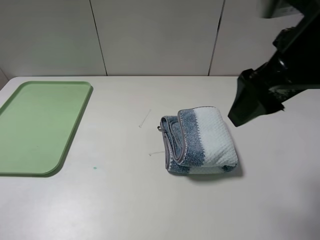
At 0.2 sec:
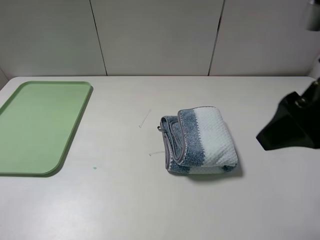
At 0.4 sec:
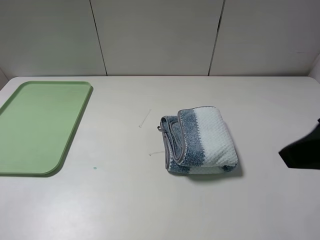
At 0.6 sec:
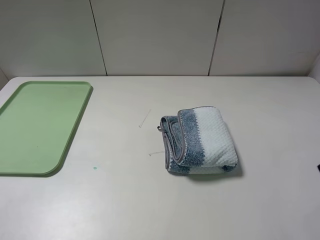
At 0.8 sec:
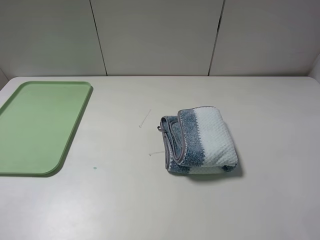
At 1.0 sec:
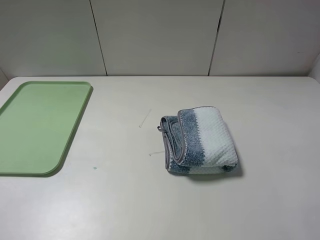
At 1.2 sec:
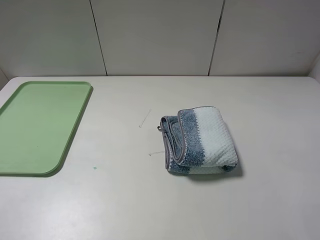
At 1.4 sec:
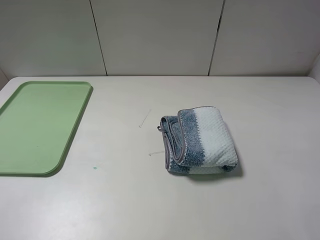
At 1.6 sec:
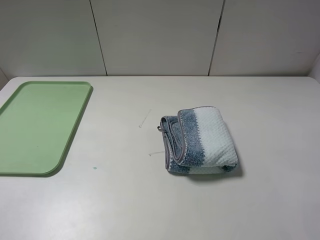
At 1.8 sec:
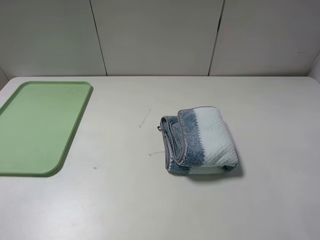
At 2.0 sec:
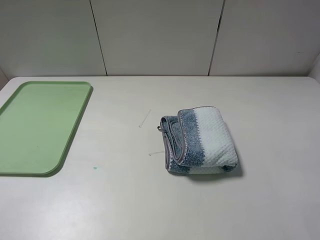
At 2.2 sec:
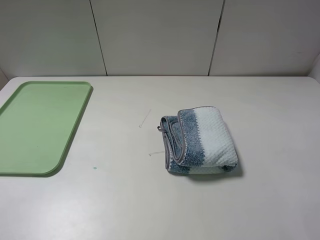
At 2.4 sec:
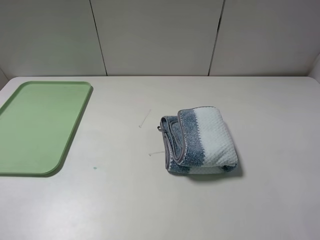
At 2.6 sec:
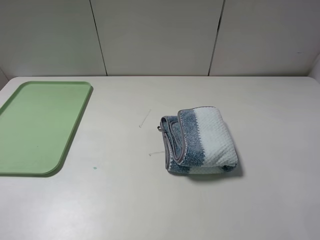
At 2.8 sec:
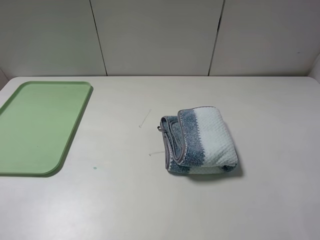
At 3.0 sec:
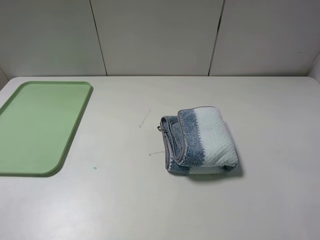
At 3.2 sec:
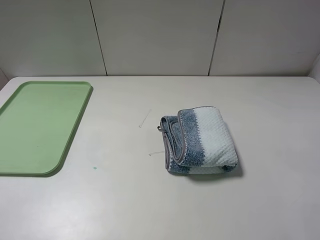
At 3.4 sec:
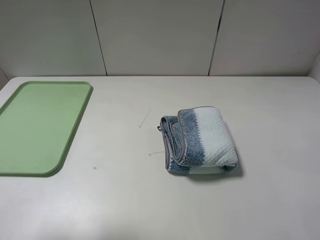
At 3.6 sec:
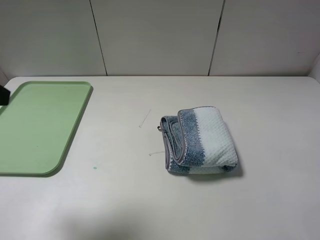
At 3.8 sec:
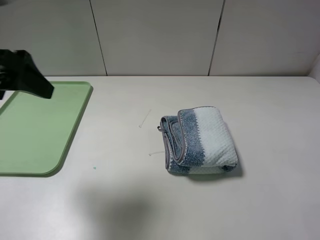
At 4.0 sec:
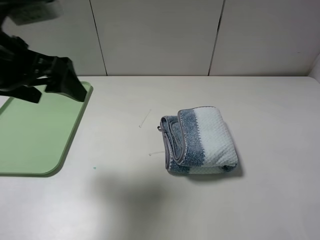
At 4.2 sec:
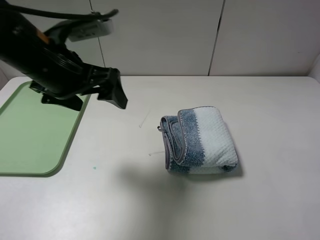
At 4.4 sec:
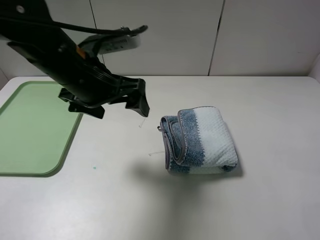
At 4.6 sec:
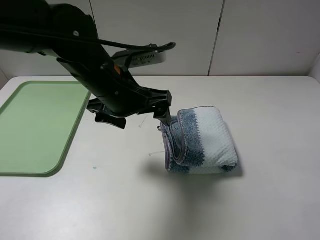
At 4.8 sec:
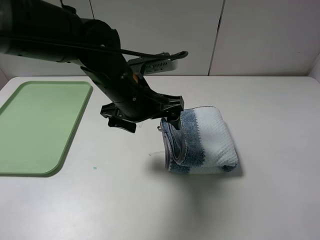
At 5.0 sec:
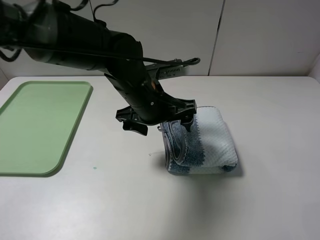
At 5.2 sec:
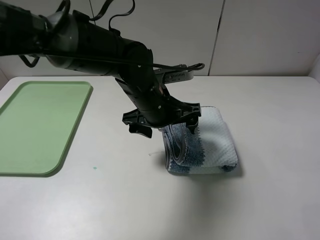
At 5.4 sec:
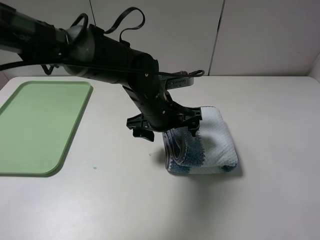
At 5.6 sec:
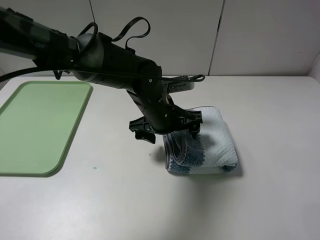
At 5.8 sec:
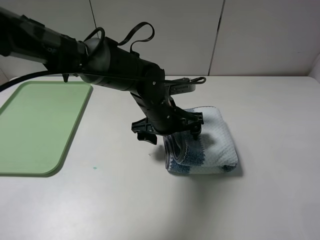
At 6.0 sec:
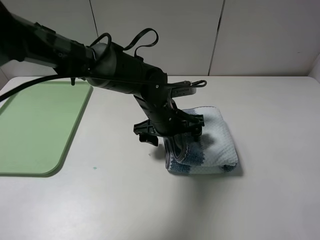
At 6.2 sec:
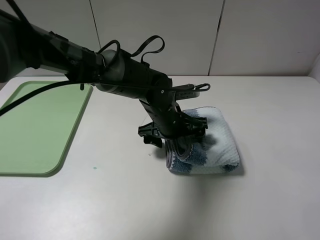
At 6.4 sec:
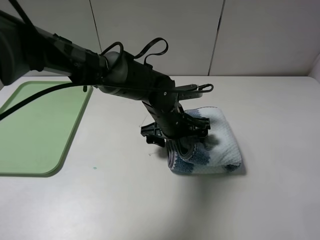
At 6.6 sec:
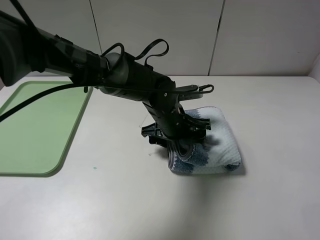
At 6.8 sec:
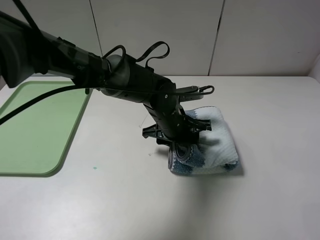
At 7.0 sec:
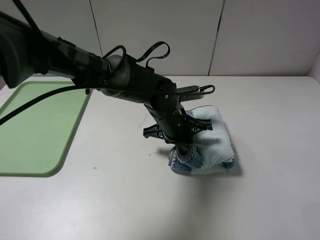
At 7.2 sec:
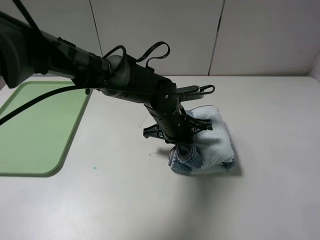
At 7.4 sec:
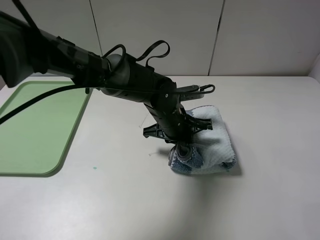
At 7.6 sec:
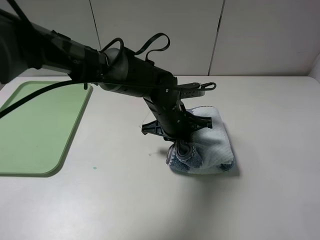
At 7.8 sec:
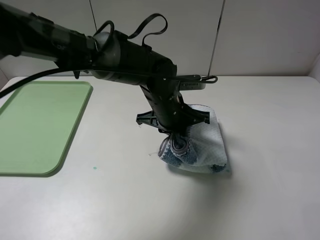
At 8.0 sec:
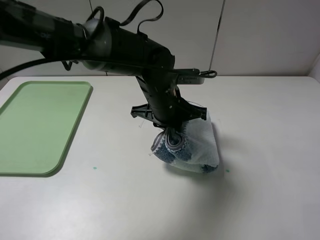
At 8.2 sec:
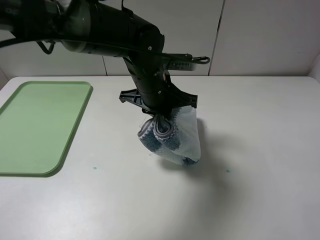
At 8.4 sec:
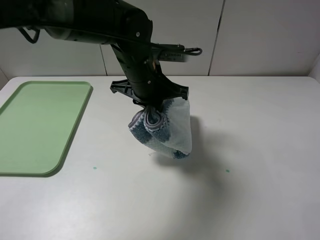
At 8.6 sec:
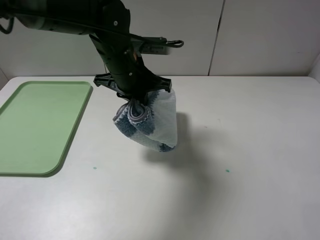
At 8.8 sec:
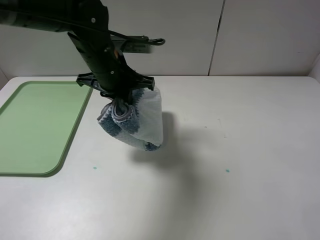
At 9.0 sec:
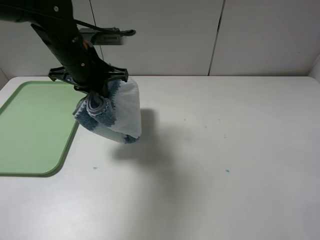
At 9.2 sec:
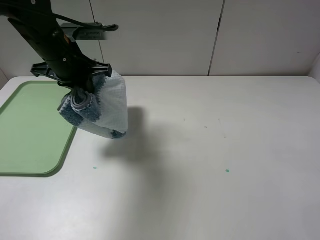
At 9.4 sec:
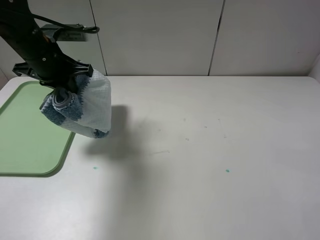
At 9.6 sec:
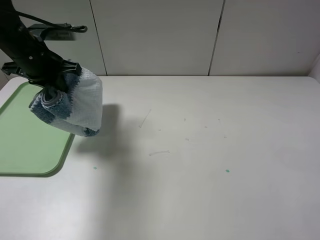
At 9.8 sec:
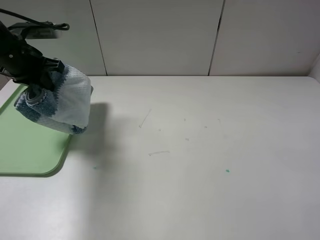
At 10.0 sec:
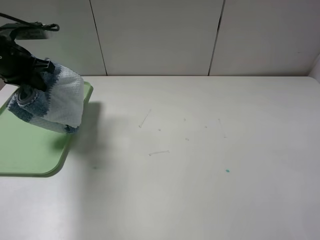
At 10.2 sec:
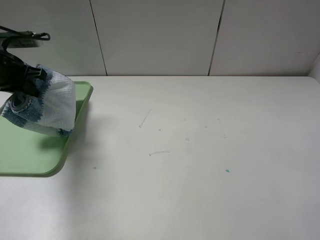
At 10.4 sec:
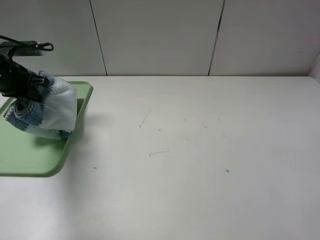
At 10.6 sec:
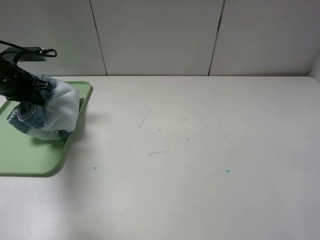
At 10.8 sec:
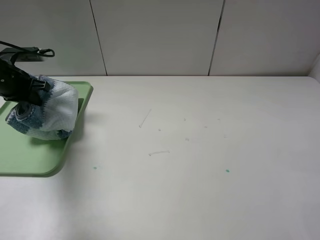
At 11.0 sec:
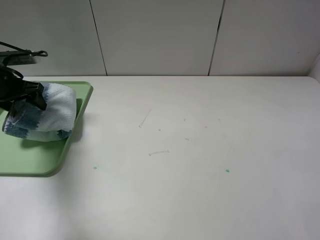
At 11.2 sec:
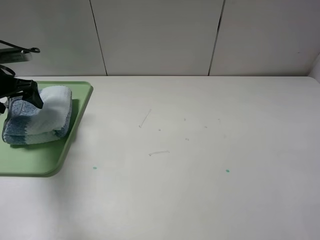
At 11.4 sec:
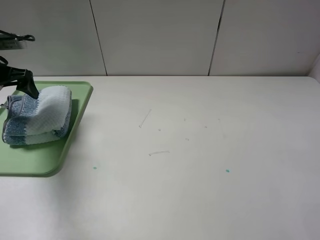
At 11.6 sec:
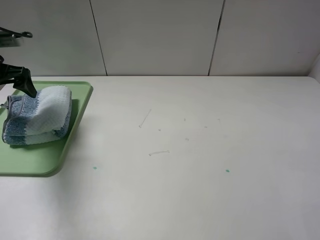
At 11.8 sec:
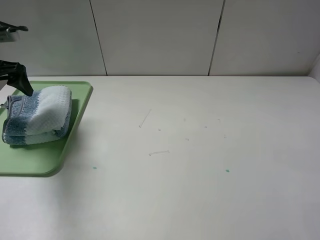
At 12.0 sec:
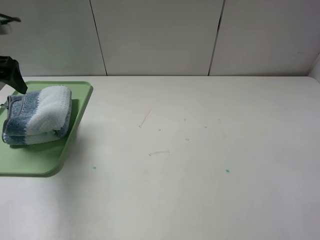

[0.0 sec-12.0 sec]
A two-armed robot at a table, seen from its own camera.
Step, 0.0 sec to 6.8 sec: Grasp the blue white towel with the left gripper.
0.0 sec to 1.6 sec: The right gripper heads backward and to the right, covering about 20 cm.
3.0 sec to 4.4 sec: The left gripper is displaced forward and to the right by roughly 30 cm.
4.4 sec to 6.0 sec: The left gripper travels downward and to the right by about 20 cm.
6.0 sec to 7.6 sec: The left gripper closes up.
7.6 sec to 9.0 sec: The left gripper is displaced to the left and upward by roughly 20 cm.
9.0 sec to 10.4 sec: The left gripper travels to the left by approximately 20 cm.
10.4 sec to 12.0 sec: The left gripper travels upward by roughly 10 cm, and opens up.

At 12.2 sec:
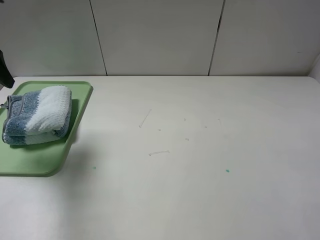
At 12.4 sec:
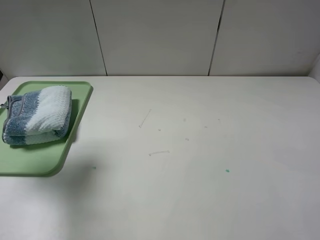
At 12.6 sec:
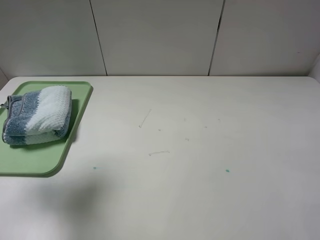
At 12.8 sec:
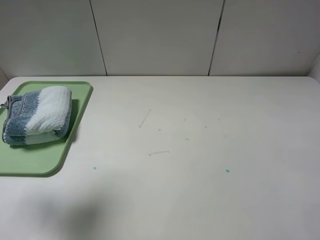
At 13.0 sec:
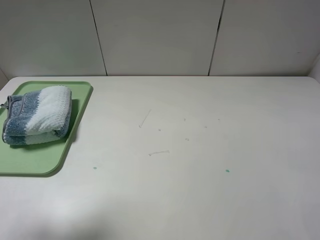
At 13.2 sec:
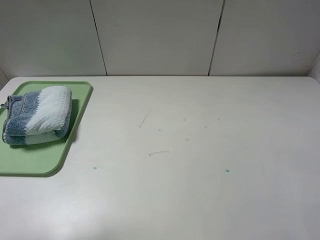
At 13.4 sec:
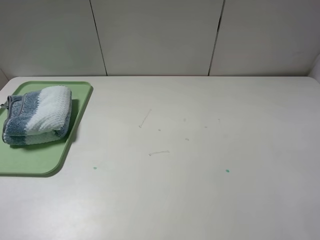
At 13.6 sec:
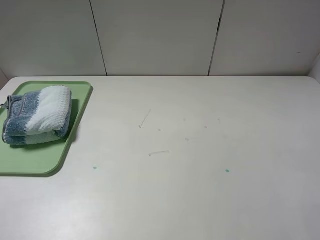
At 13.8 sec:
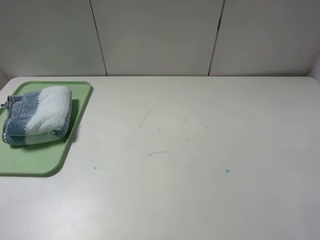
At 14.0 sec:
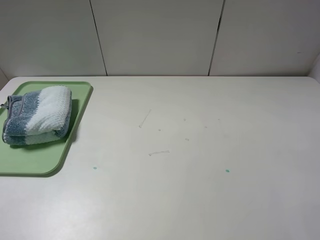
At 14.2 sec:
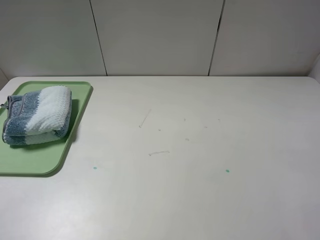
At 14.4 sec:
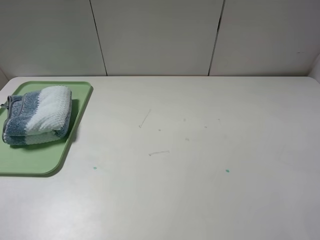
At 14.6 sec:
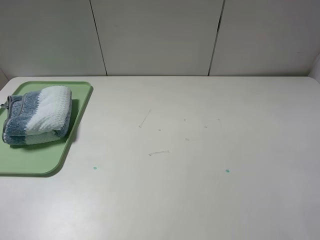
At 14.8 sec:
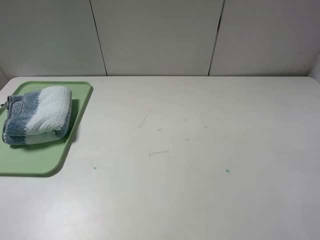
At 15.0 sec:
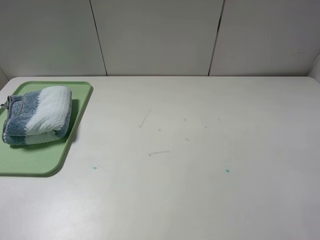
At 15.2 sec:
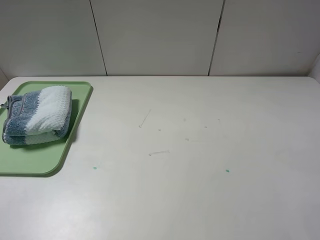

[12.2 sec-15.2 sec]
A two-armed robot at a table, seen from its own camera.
12.2 sec to 13.8 sec: The left gripper moves backward, roughly 30 cm.
